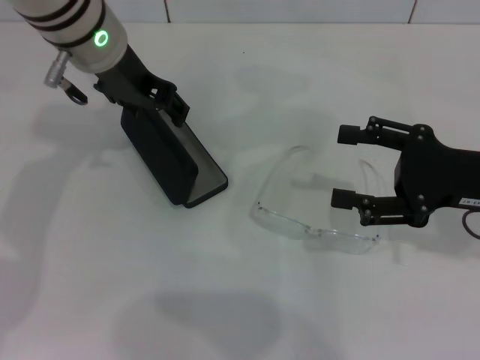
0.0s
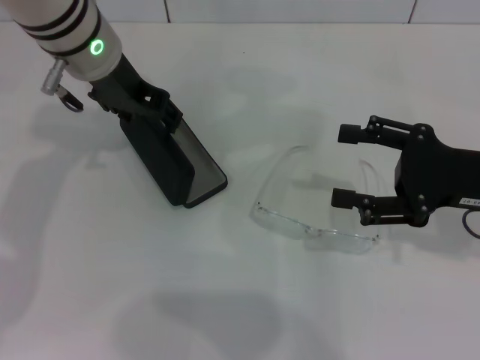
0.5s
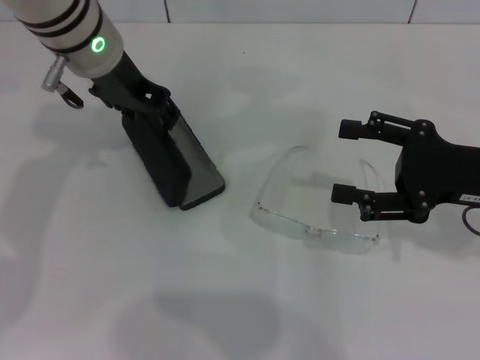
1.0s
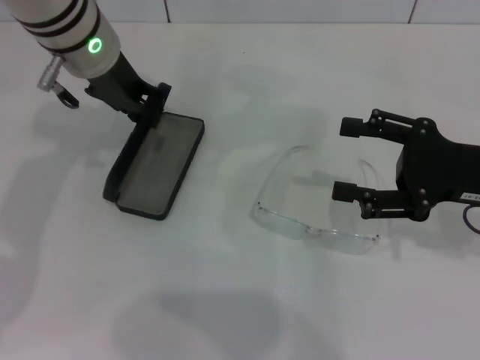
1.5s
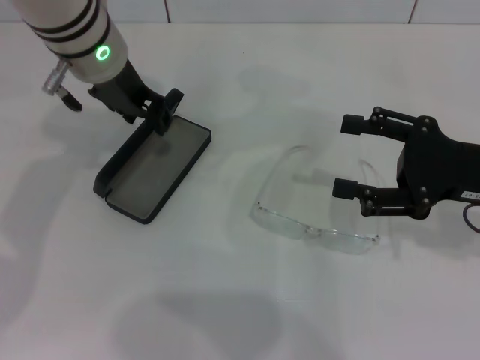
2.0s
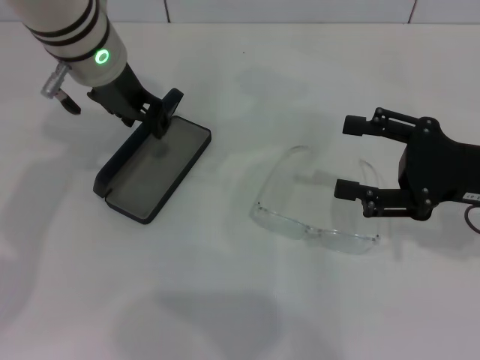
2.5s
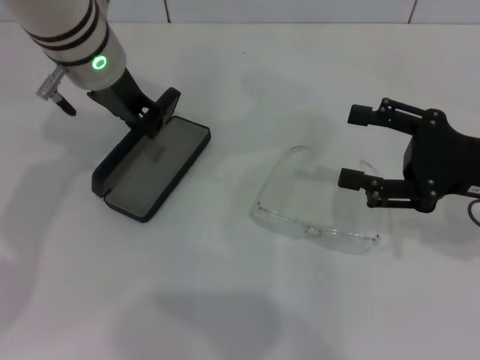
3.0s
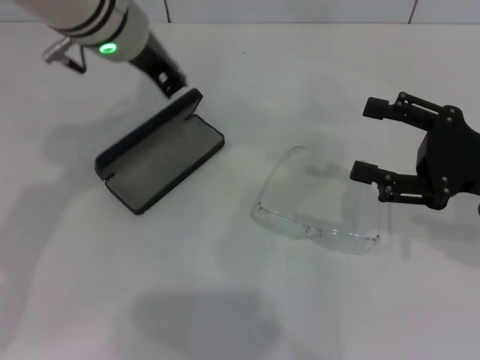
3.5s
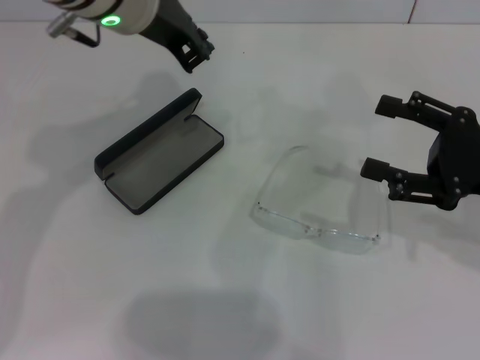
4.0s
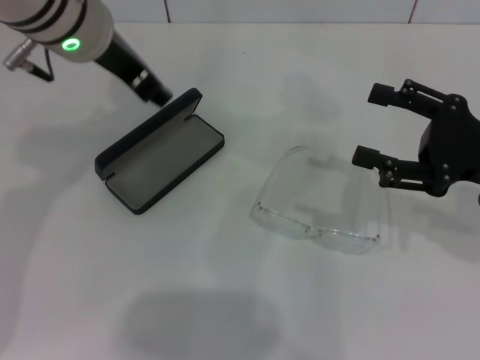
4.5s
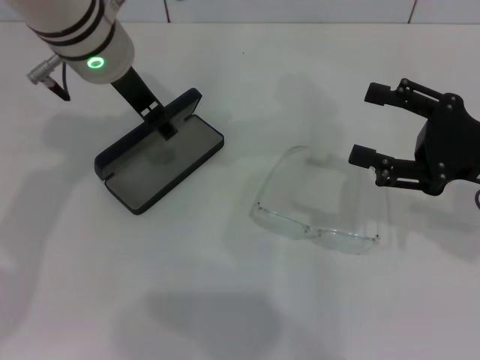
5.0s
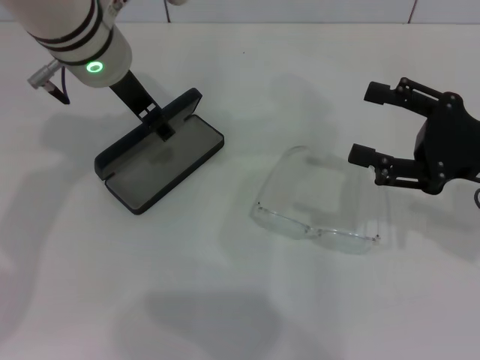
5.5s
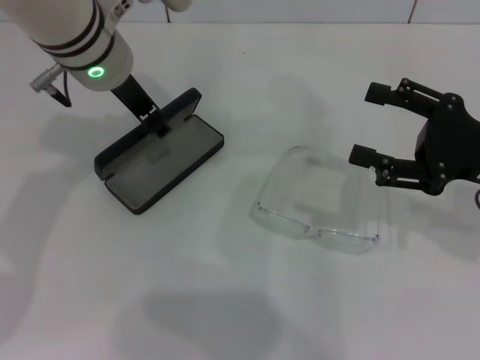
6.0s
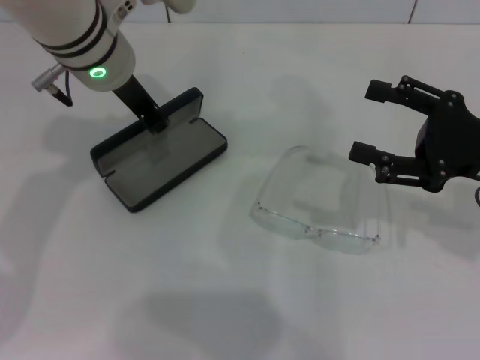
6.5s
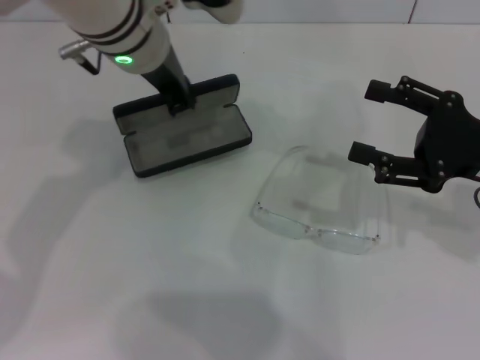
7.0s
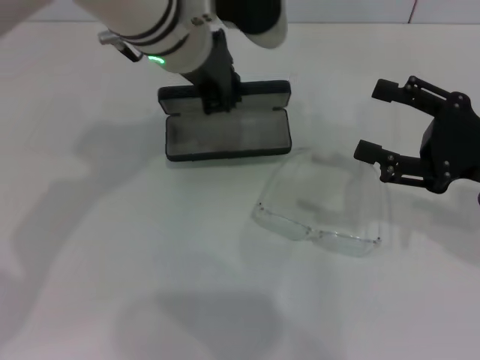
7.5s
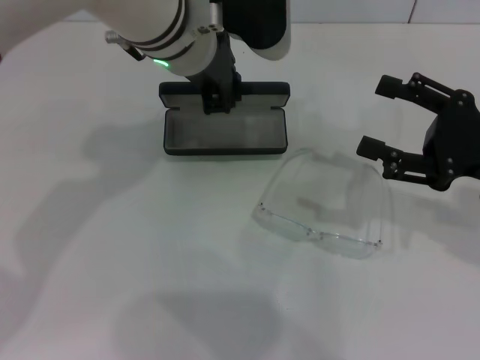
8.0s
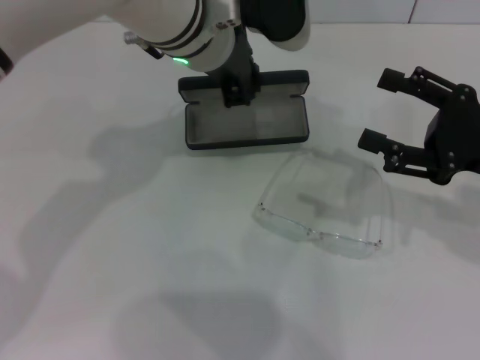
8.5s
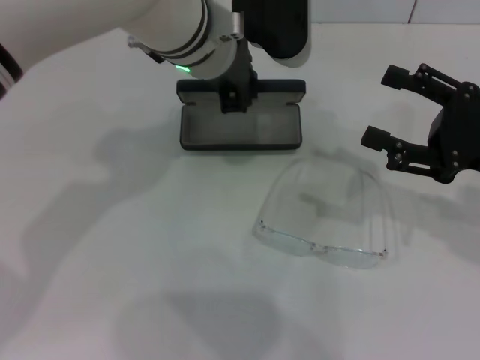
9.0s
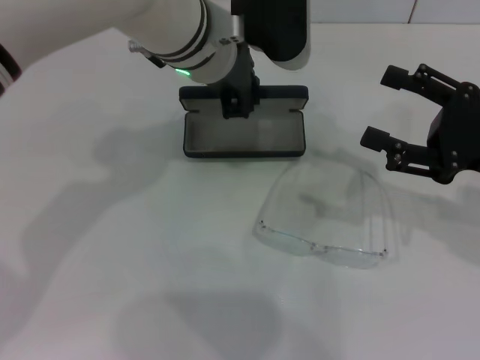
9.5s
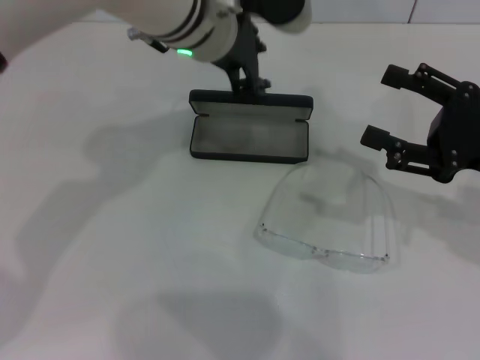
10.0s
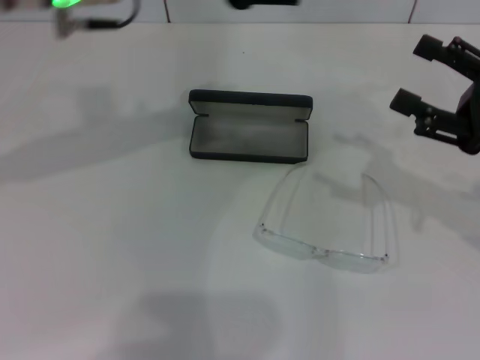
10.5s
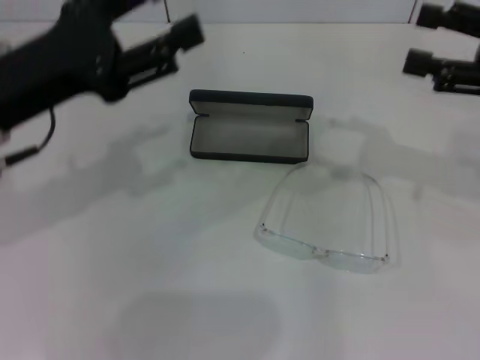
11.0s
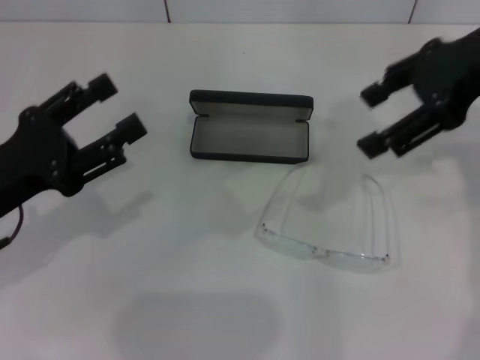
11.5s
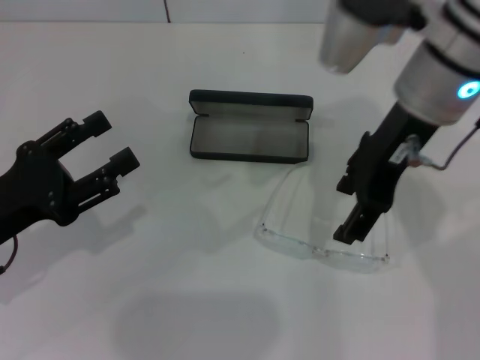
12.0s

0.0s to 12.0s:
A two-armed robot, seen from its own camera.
Step, 0.0s to 6.0s: Grab the glasses case with your left hand.
Step, 6.5s to 9.5s: Place the glasses case in the center of the table with your left hand.
0.0s to 2.0s: The left gripper closes.
2.0s to 4.0s: The left gripper ends up approximately 5 cm from where it was.
4.0s to 6.0s: The left gripper heads downward, covering about 5 cm, and opens up.
6.0s to 8.0s: The left gripper shifts approximately 5 cm to the right, and closes its fingers.
8.0s to 10.0s: The grippers stay close to where they were, moving slightly.
10.0s to 12.0s: The right gripper heads to the left and upward, covering some 20 cm; the left gripper is displaced to the left, backward and downward by approximately 30 cm, and opens.

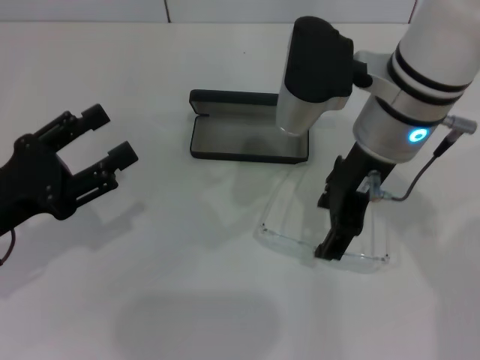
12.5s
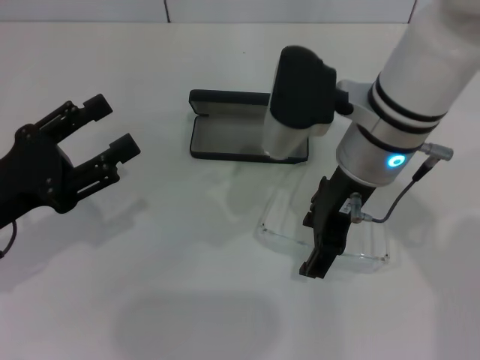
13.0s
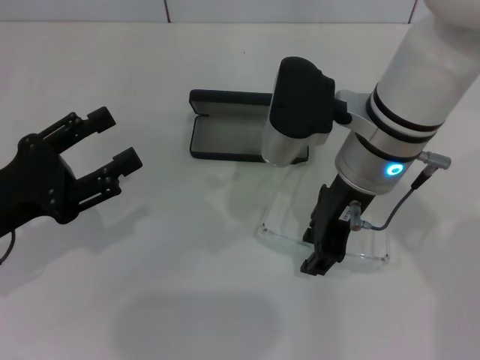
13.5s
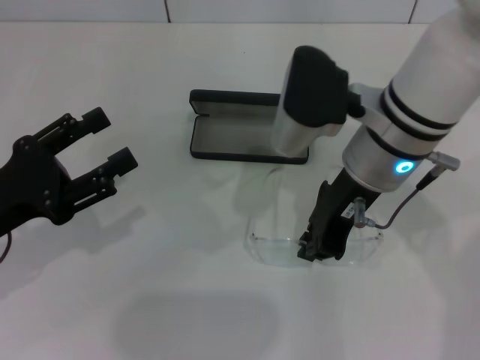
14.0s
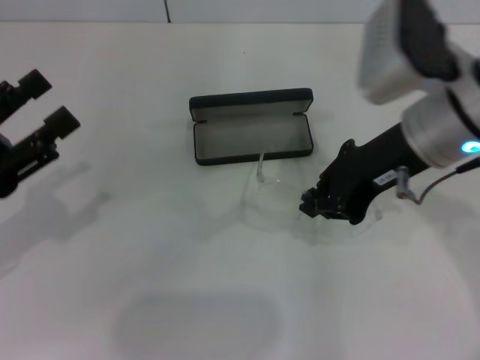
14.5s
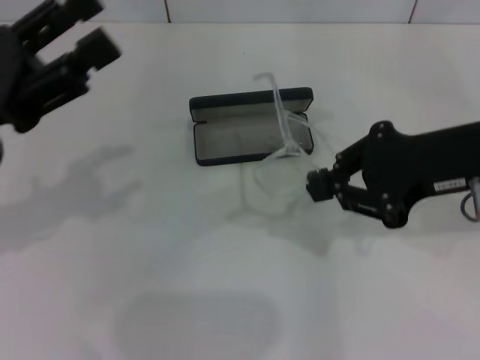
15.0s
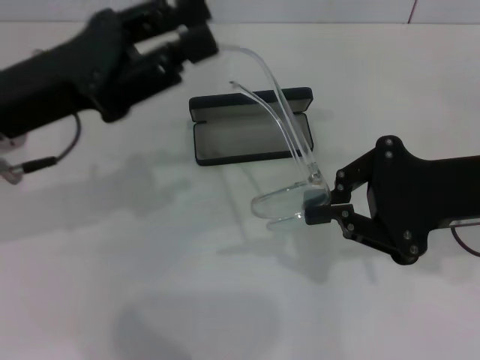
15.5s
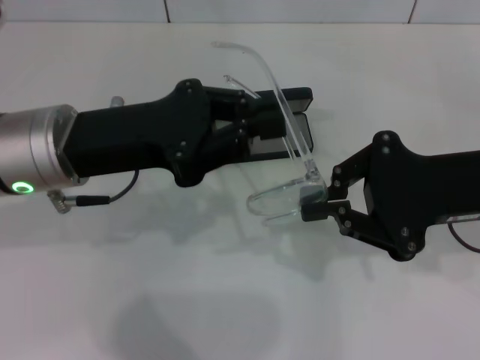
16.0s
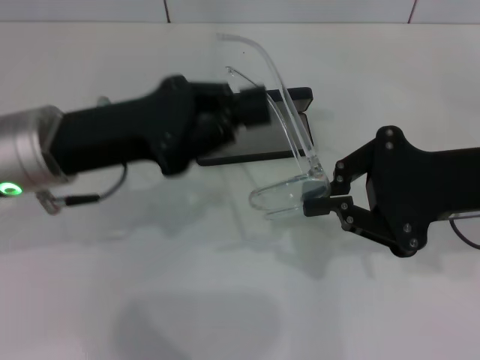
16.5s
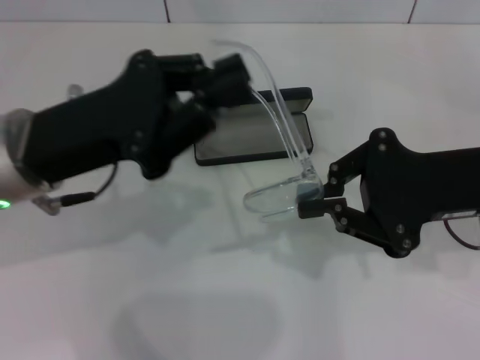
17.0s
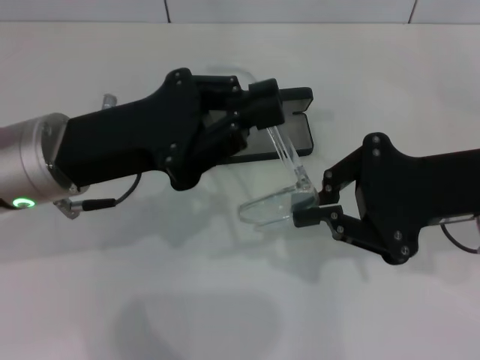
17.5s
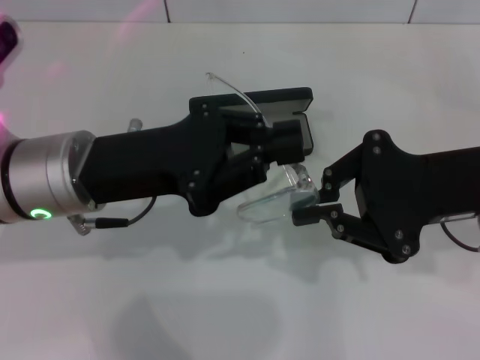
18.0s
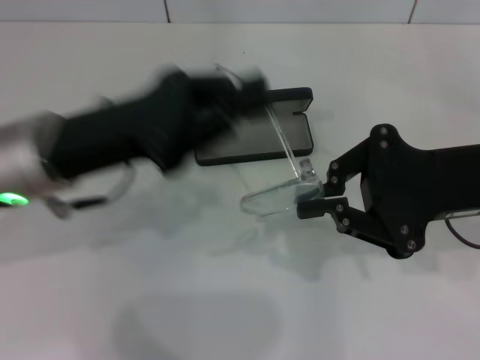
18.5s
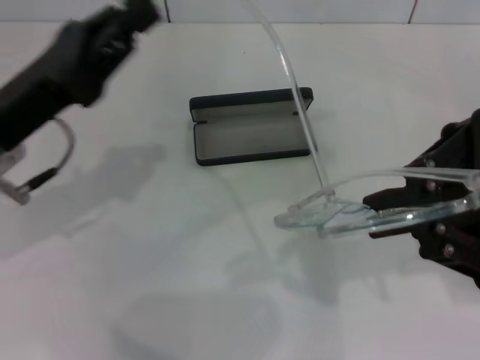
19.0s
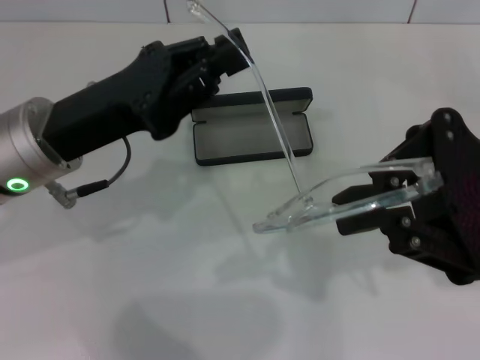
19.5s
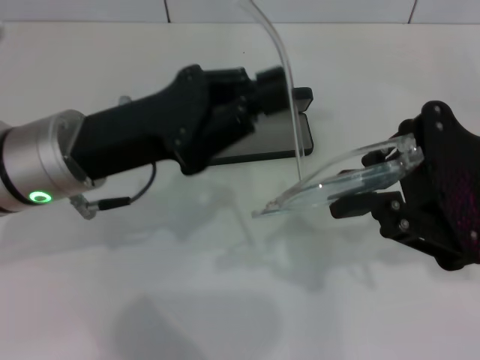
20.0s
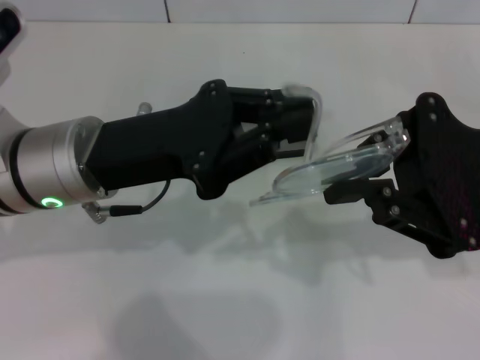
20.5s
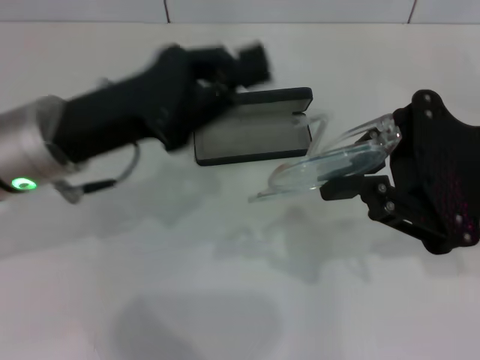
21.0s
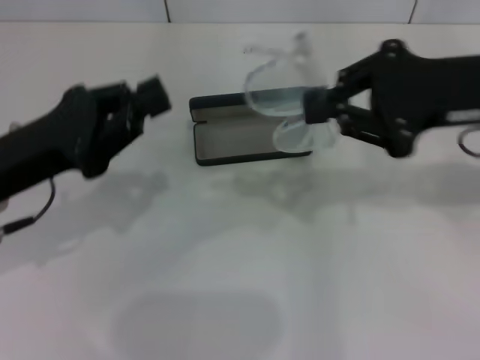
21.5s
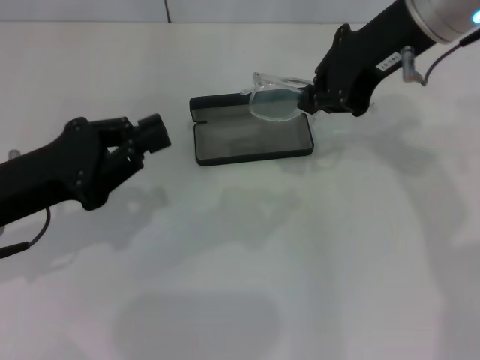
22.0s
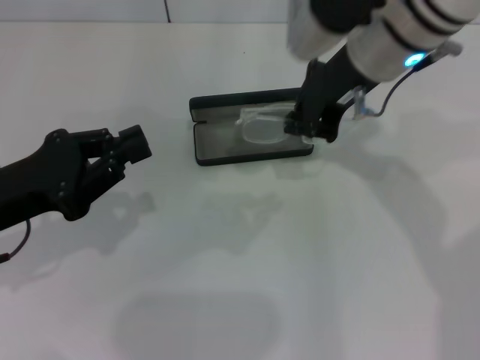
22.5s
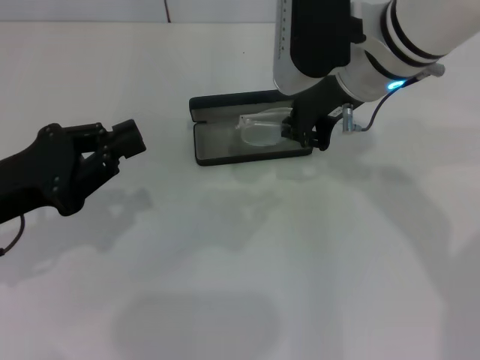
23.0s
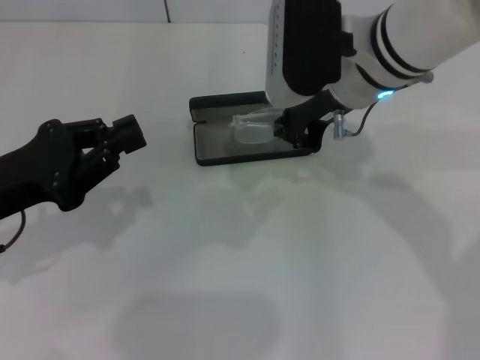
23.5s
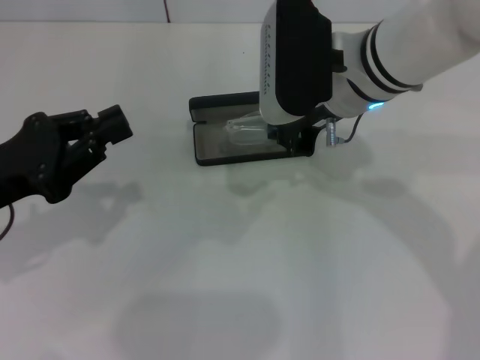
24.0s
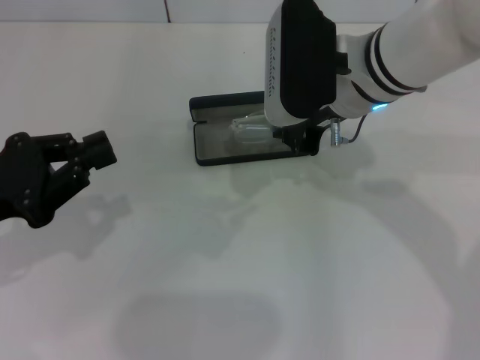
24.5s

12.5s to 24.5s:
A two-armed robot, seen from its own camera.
Step, 14.0s to 20.5s: Lift the glasses with your right hand.
12.5s to 14.5s: The right gripper shifts some 5 cm to the right, and closes its fingers.
14.5s to 16.5s: The left gripper shifts some 15 cm to the right and forward, and closes up, while the right gripper heads to the right, covering about 5 cm.
16.5s to 18.5s: The grippers make only small movements.
20.5s to 22.5s: The right gripper shifts some 15 cm to the left and forward, while the left gripper travels to the left by about 10 cm.
22.5s to 24.5s: The right gripper shifts by about 5 cm.

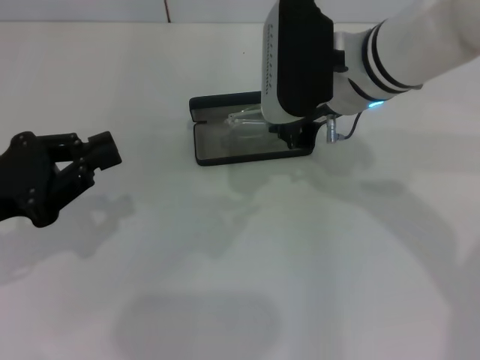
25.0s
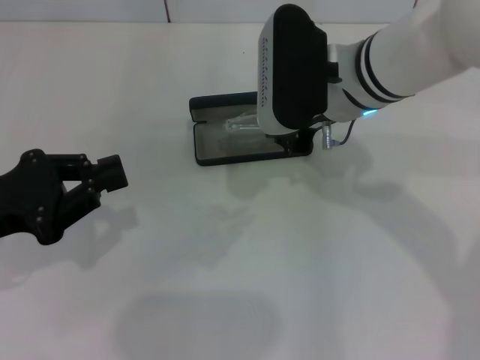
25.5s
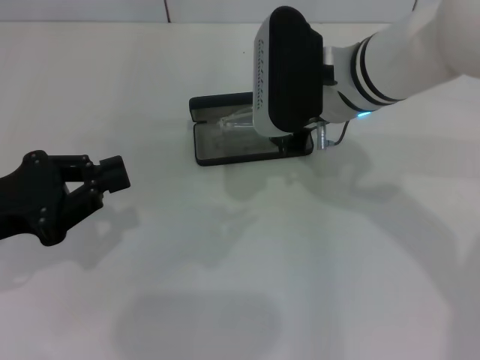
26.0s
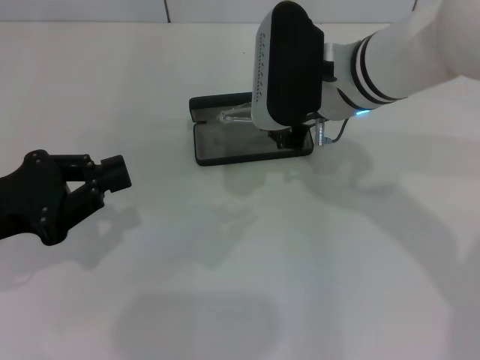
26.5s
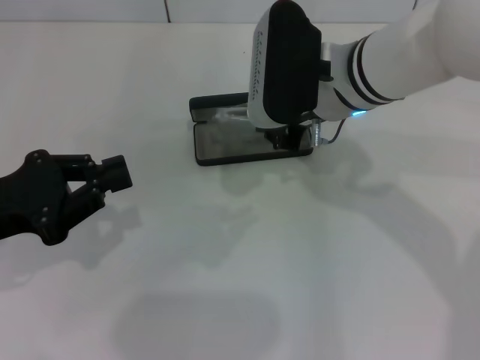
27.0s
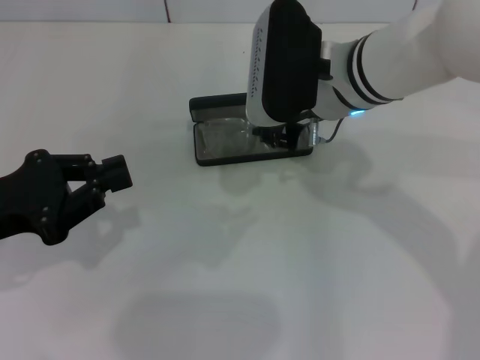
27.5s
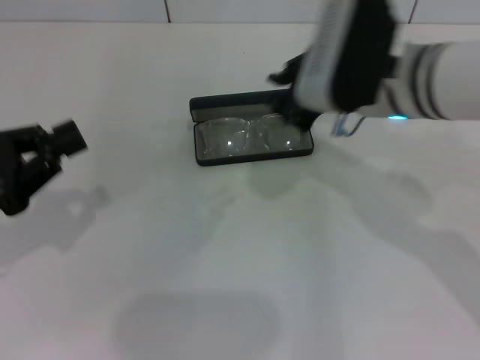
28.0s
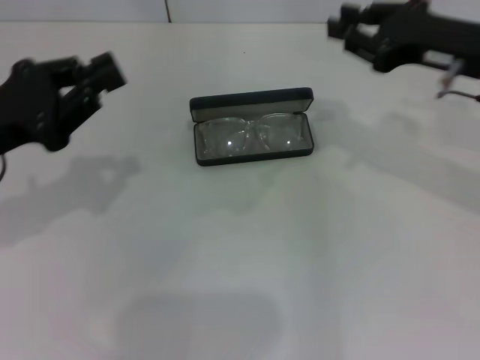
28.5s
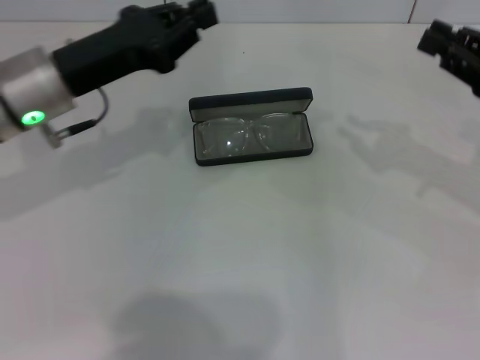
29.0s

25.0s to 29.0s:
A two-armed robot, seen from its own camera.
Step, 25.0s to 27.0s: Put the glasses into the case with your right hand.
25.0s to 27.0s: There are only small adjustments of the grippers.
27.0s to 29.0s: The left gripper is displaced forward and to the right by approximately 15 cm, while the right gripper moves to the right, roughly 25 cm.
